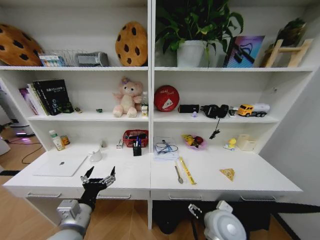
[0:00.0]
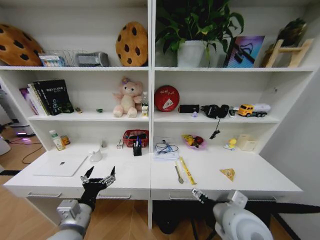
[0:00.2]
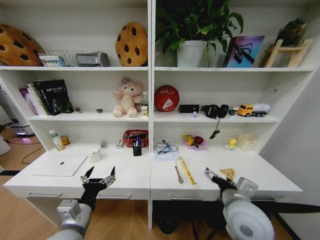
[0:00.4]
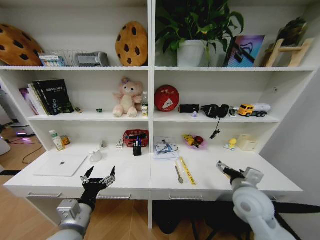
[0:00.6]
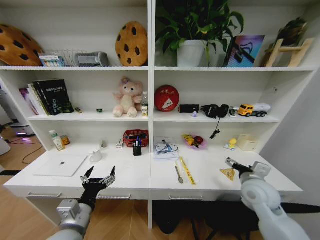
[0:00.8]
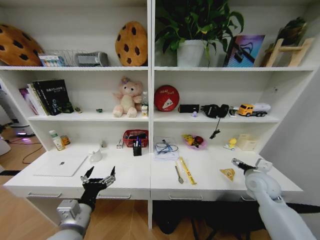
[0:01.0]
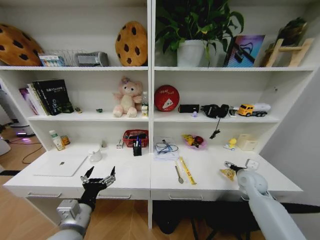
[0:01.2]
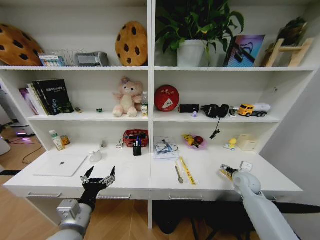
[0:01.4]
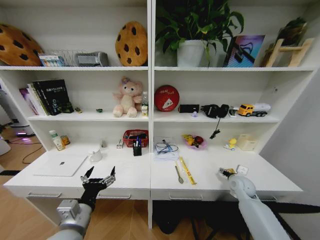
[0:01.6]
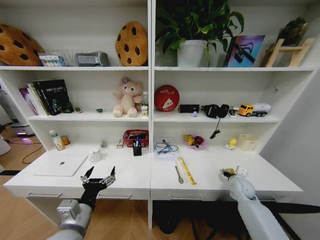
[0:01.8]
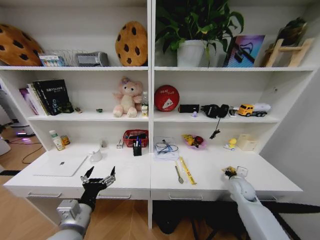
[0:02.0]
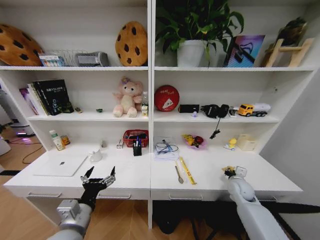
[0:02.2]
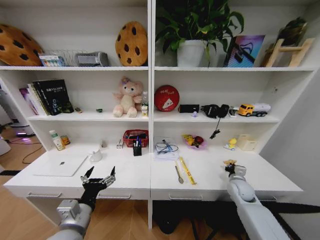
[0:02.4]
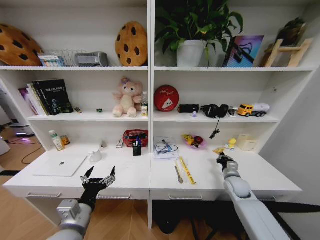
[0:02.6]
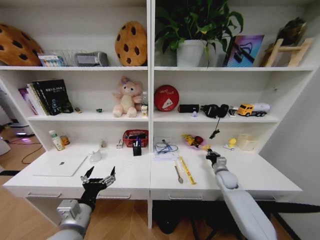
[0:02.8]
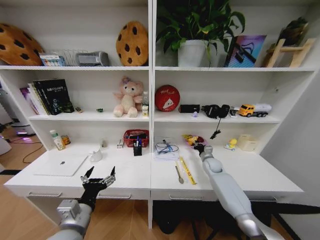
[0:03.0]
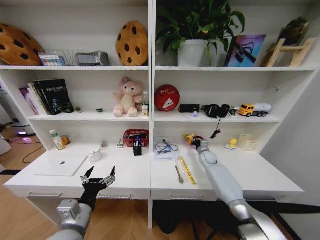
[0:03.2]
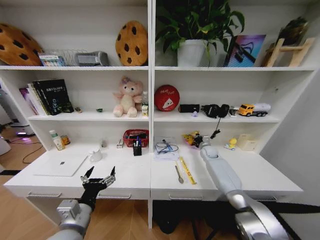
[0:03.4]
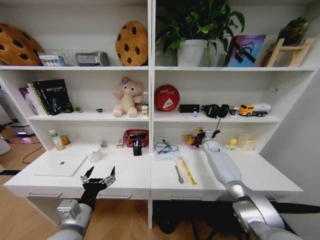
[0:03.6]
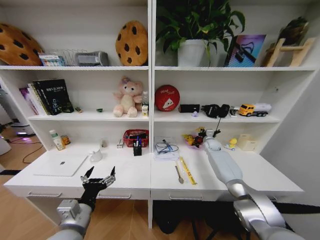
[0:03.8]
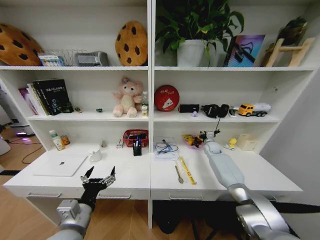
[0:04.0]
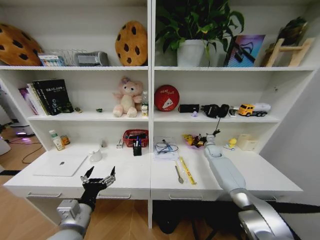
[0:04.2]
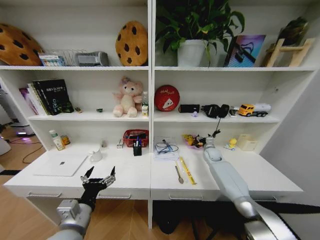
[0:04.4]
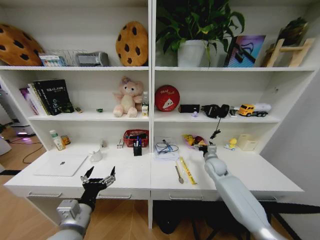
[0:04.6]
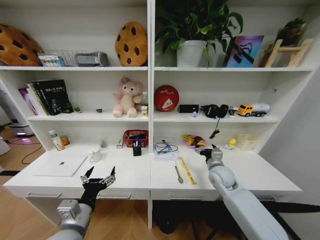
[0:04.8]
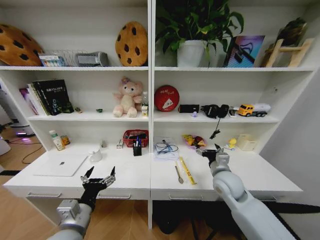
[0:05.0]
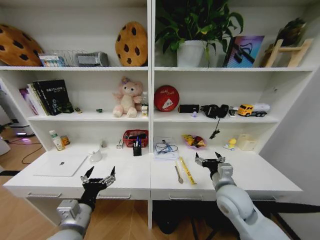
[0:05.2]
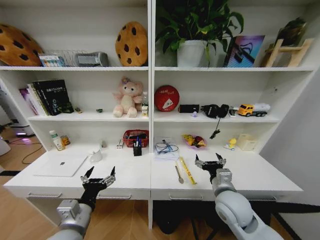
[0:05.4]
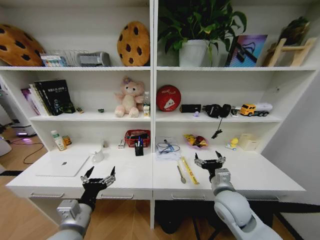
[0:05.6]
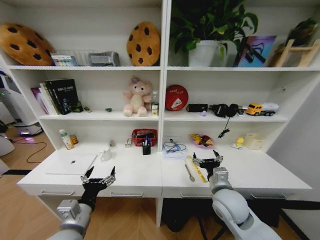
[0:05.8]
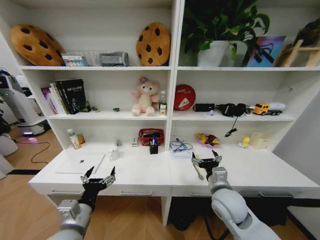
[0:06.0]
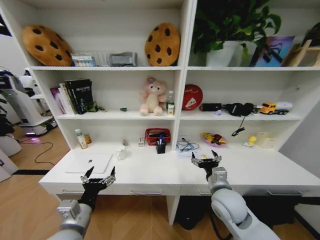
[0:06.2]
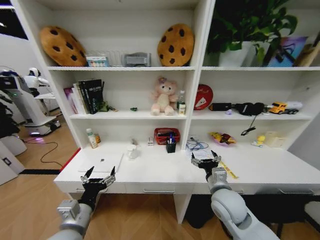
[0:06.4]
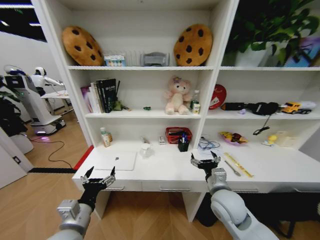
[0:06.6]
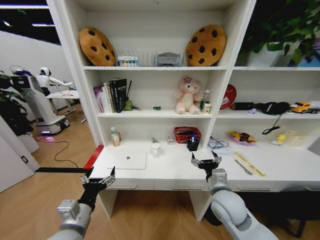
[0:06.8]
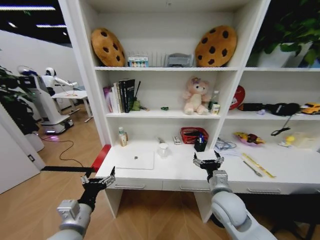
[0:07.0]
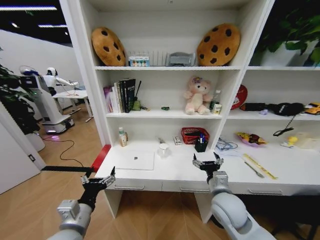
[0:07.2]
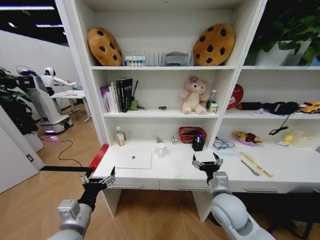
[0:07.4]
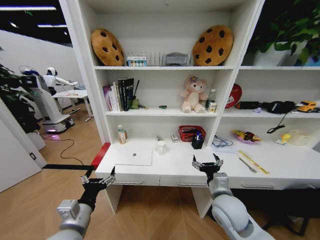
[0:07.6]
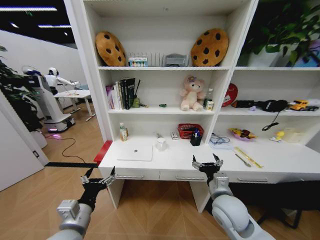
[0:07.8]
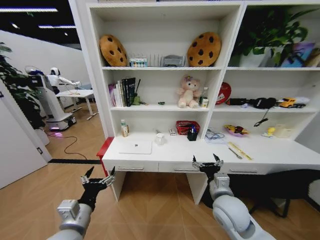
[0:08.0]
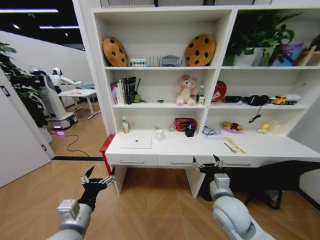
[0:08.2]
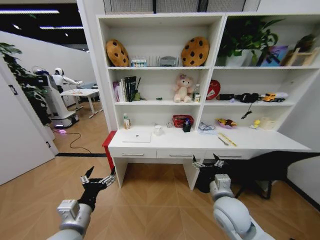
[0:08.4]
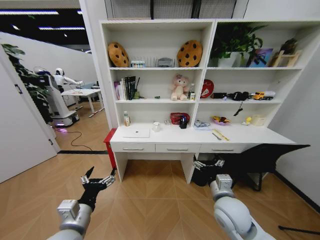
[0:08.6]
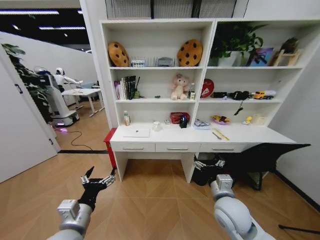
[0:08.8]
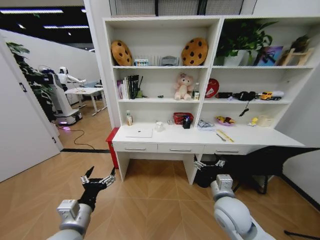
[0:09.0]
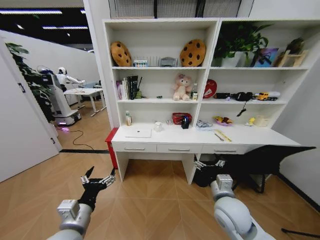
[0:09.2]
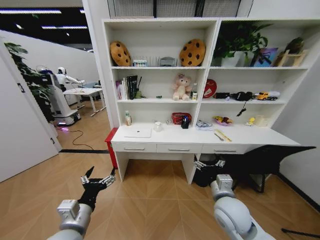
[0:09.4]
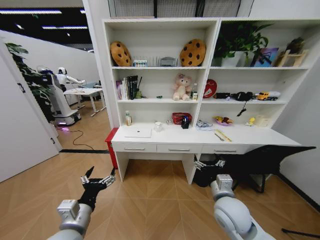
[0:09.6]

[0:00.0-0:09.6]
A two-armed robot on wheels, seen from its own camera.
Task of the whole recording: Organize the objects on the table.
0.0 to 1.6 s: The right gripper travels to the right and forward by roughly 25 cm.
1.6 to 3.2 s: The right gripper is displaced forward and to the left by approximately 20 cm, and closes.
3.2 to 4.8 s: The right gripper travels backward and upward by roughly 15 cm, and opens up.
4.8 to 6.4 s: The right gripper goes approximately 15 cm backward and to the left.

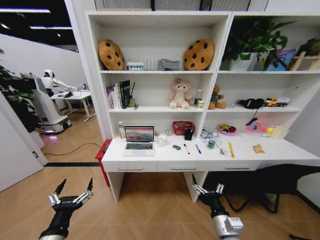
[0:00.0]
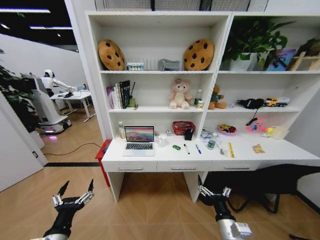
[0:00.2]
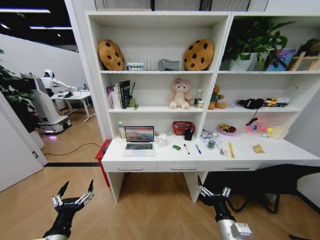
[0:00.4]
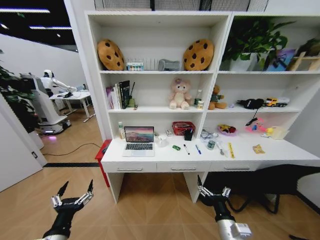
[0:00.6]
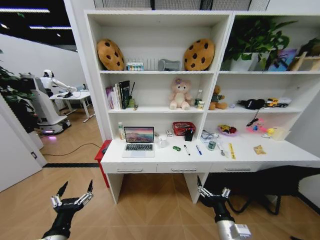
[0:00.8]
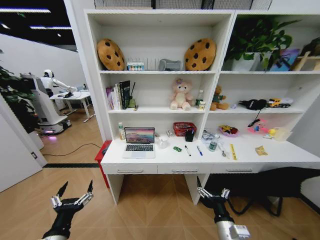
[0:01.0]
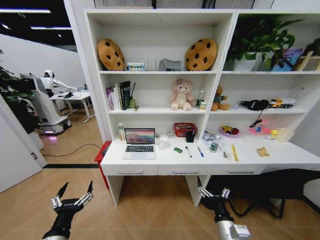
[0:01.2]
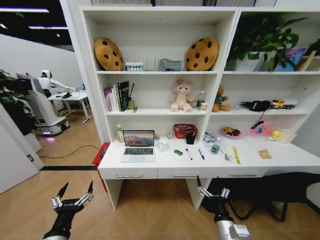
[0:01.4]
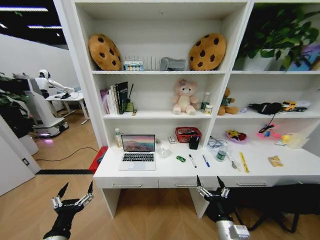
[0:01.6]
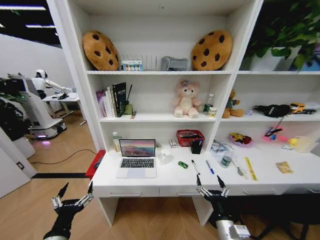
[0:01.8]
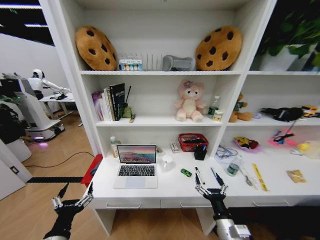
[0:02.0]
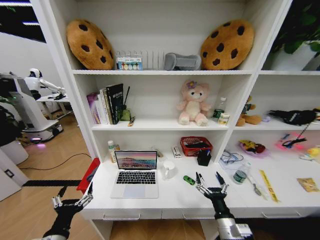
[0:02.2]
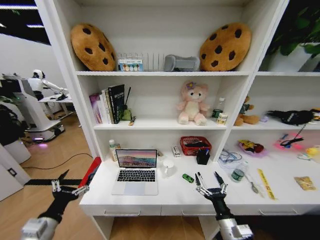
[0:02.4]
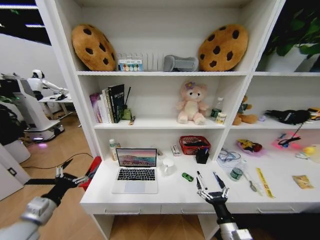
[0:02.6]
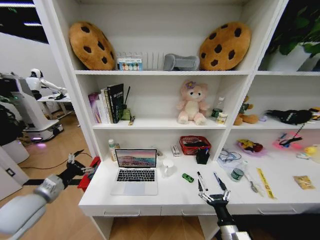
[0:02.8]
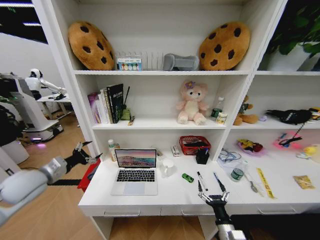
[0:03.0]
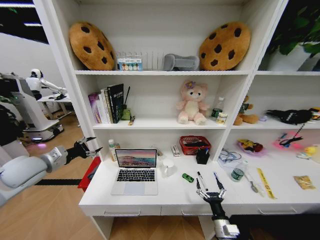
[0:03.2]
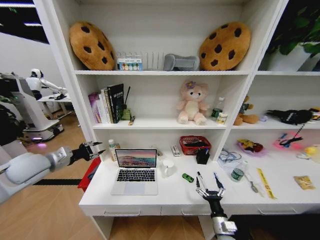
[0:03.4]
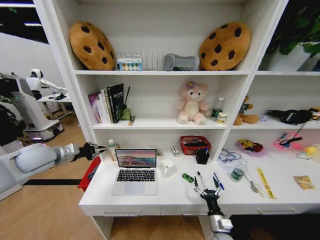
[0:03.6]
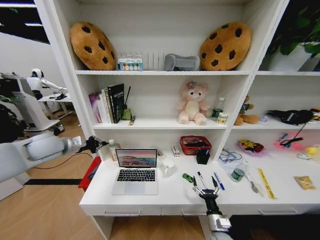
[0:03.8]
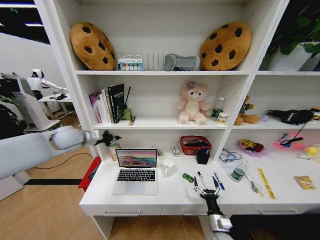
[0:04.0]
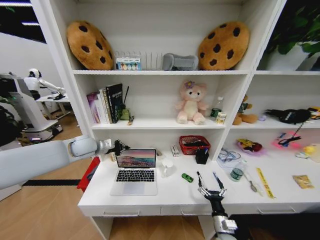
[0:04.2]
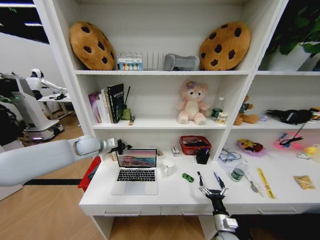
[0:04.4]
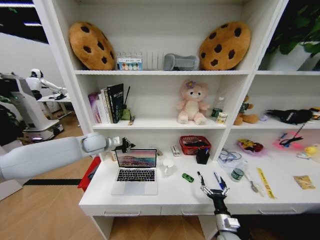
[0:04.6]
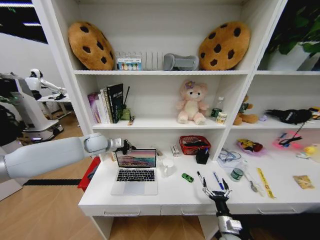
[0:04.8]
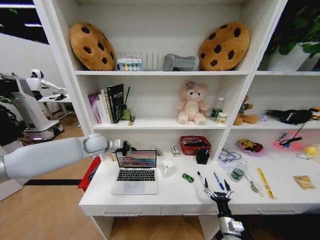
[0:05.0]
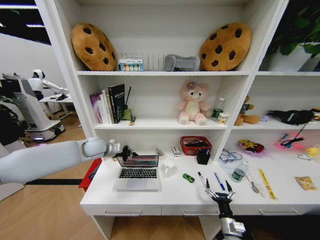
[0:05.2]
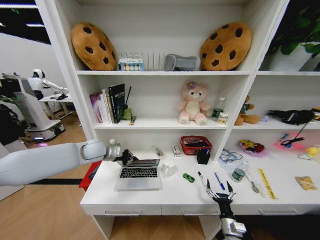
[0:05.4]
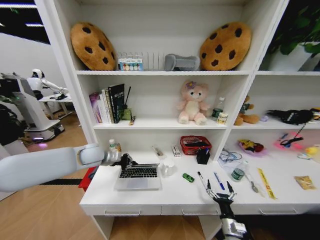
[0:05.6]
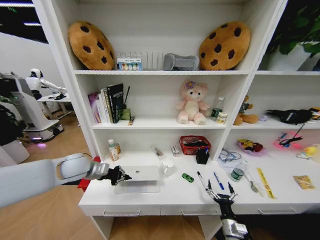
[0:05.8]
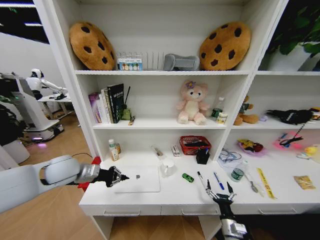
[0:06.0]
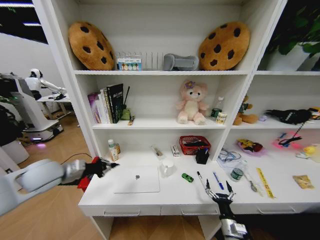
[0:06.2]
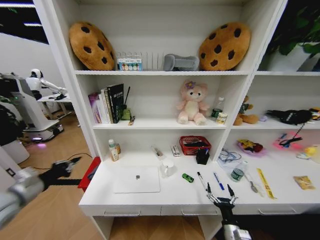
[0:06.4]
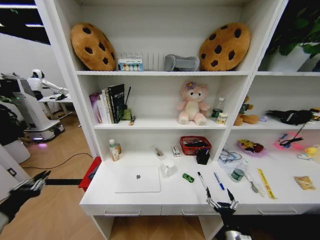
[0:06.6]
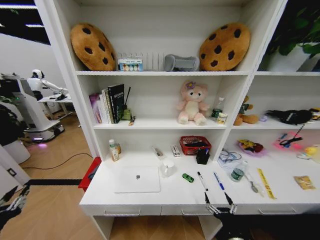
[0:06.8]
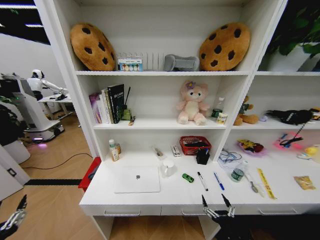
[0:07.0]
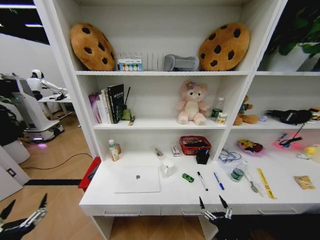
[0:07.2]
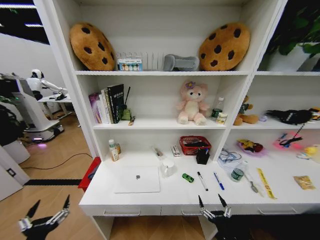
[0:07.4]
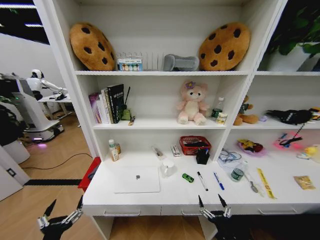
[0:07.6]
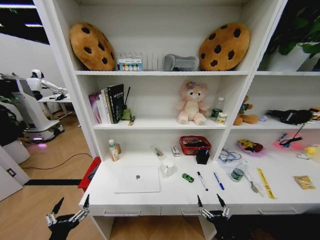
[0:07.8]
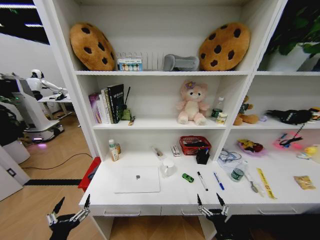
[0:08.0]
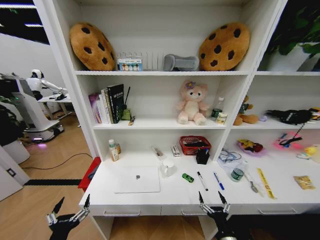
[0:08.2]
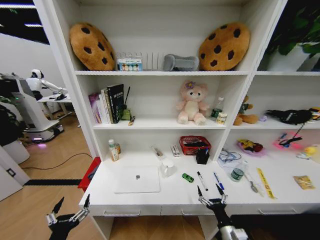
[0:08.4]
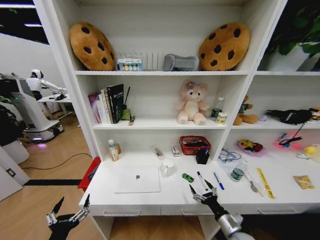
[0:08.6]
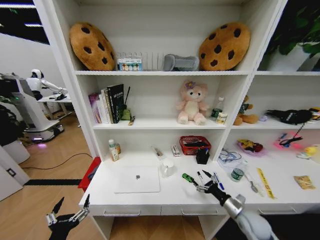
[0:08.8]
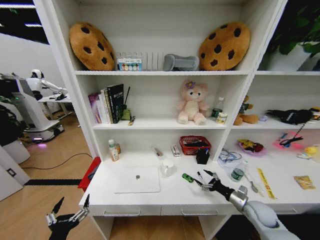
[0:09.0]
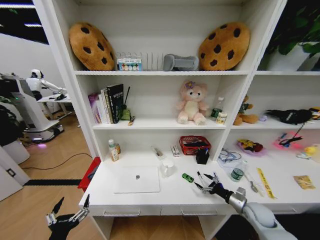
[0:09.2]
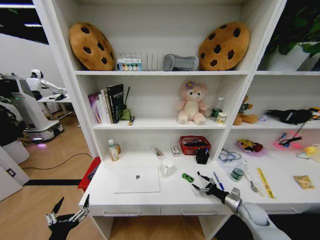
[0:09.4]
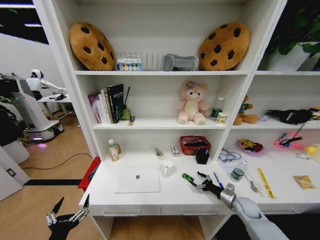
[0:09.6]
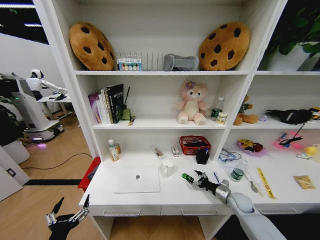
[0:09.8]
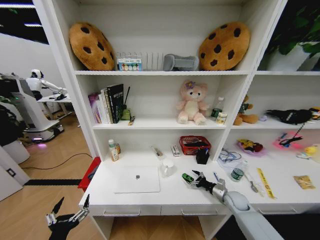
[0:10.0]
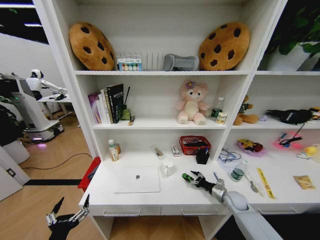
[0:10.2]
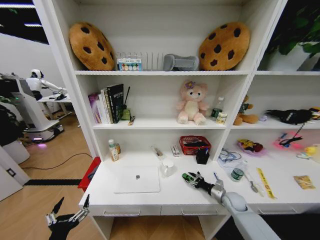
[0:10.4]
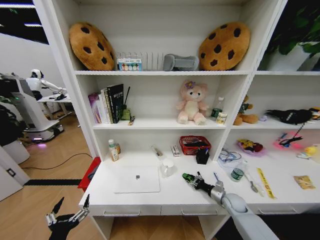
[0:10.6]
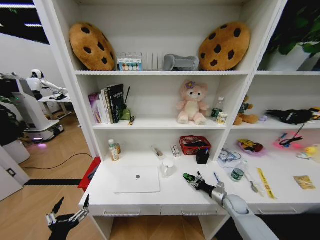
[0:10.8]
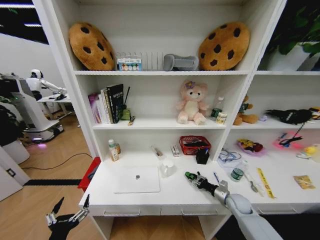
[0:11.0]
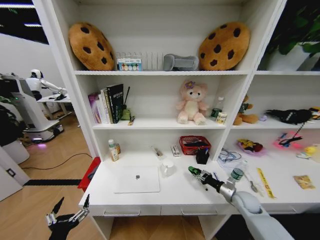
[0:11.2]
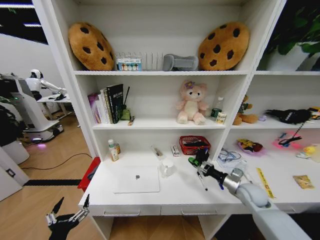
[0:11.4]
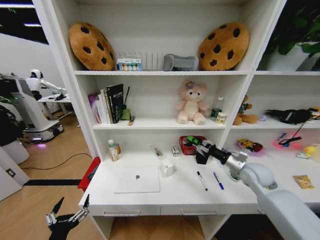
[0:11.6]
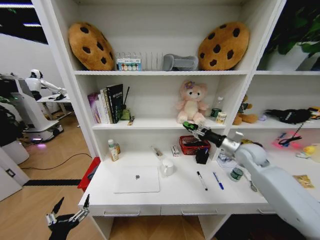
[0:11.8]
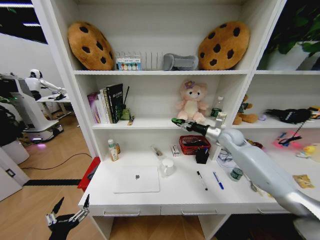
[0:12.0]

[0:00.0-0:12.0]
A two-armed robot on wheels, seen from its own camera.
Task of the whole recording: Organize the objects on the table.
1.6 to 3.0 s: The right gripper is displaced downward by roughly 5 cm; the left gripper goes about 25 cm forward, upward and to the left.
3.0 to 4.4 s: The right gripper shifts by approximately 5 cm. Meanwhile the left gripper goes approximately 20 cm forward and to the right, and closes.
4.4 to 6.0 s: The left gripper travels backward by roughly 10 cm.
6.0 to 7.6 s: The left gripper heads backward and downward, covering approximately 35 cm, and opens up. The right gripper goes approximately 10 cm backward.
7.6 to 9.0 s: The right gripper moves forward and to the right, roughly 25 cm.
9.0 to 10.4 s: The right gripper goes some 10 cm forward and downward.
10.4 to 12.0 s: The right gripper goes roughly 35 cm upward and forward.

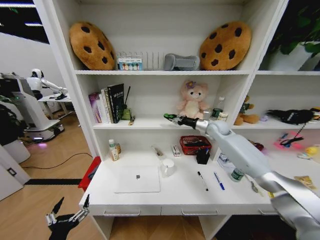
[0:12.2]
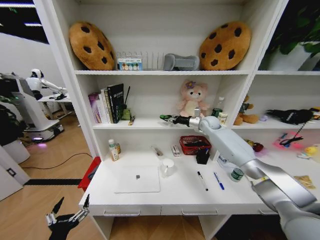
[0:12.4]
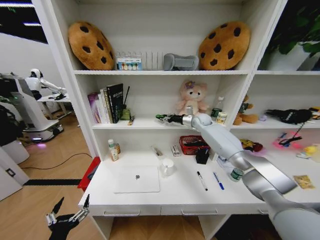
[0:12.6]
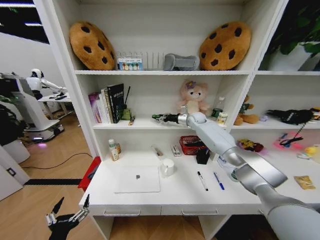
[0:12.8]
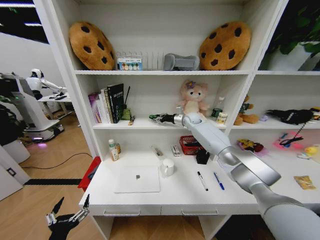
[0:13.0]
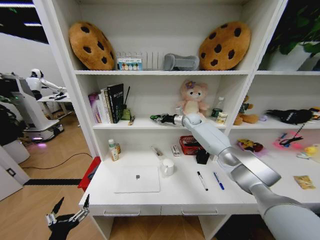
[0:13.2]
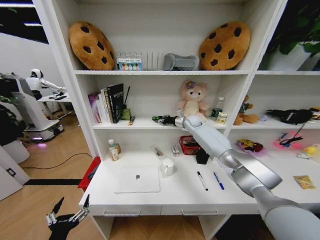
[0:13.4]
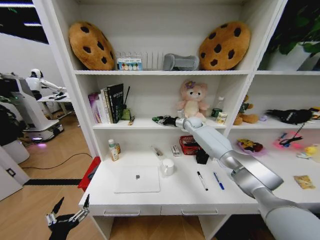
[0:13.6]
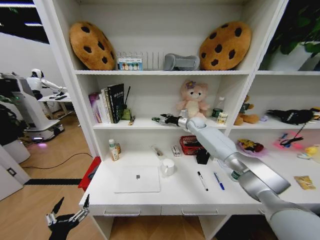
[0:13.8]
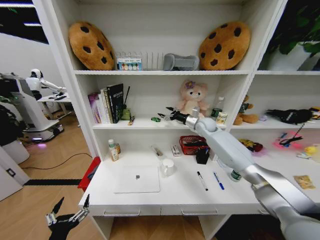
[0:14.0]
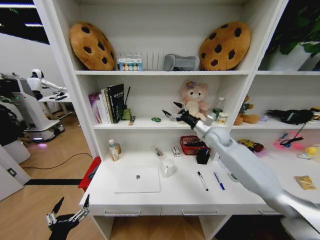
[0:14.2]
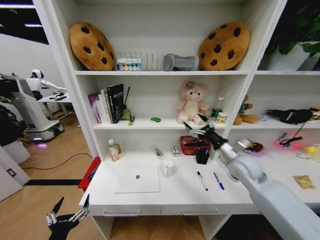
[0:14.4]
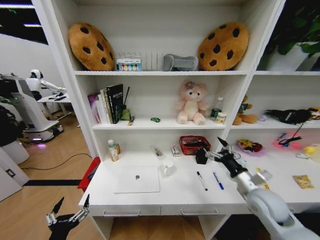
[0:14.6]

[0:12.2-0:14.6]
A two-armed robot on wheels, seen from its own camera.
Task of the whole recording: Organize the objects on the table.
12.2 to 13.4 s: The right gripper is displaced forward and to the left by some 15 cm.
13.4 to 14.6 s: The right gripper moves backward, roughly 40 cm, and opens.
